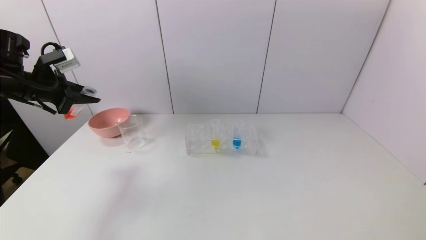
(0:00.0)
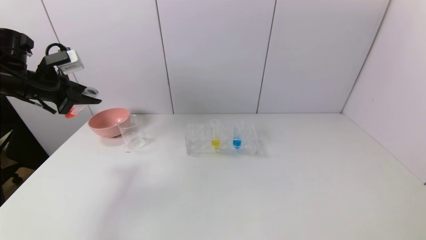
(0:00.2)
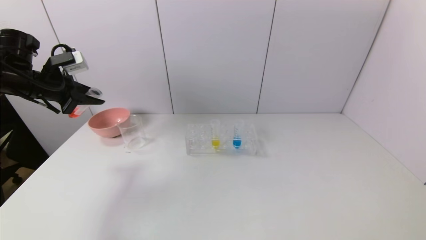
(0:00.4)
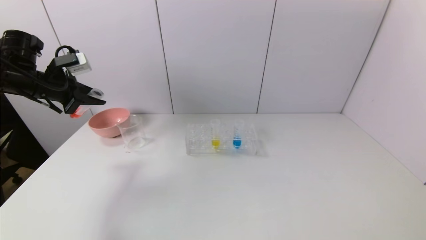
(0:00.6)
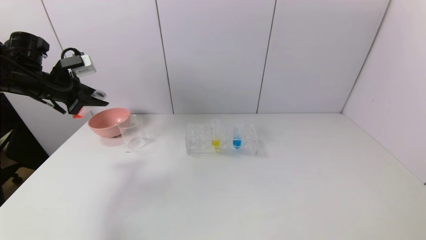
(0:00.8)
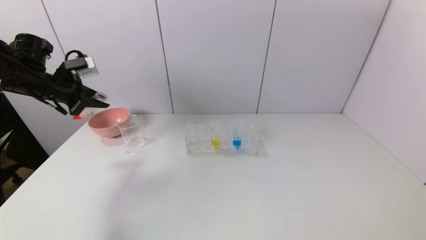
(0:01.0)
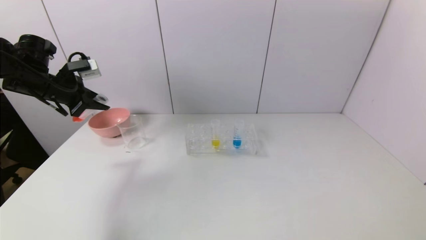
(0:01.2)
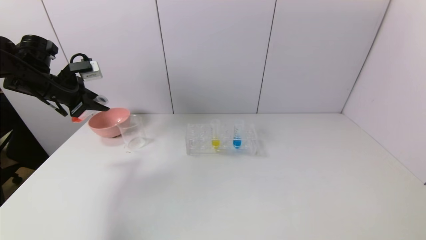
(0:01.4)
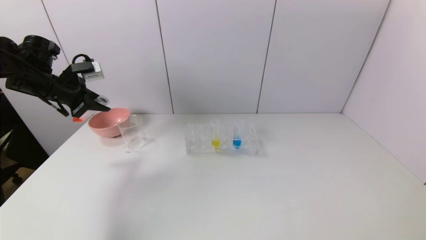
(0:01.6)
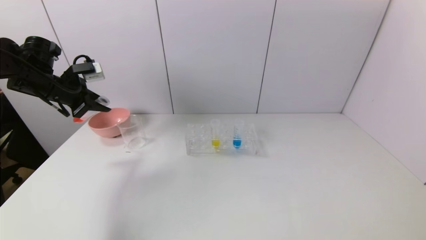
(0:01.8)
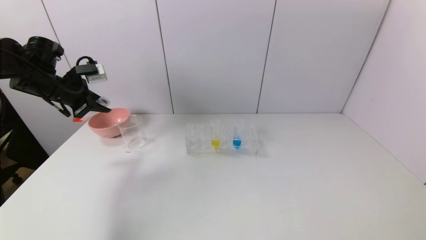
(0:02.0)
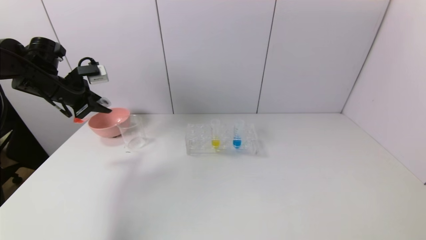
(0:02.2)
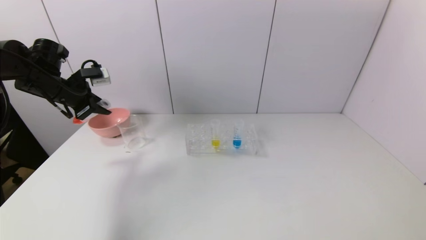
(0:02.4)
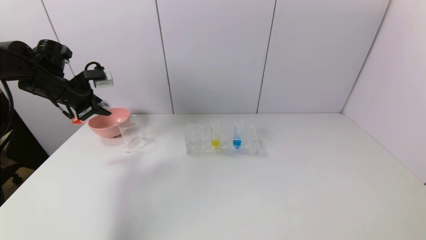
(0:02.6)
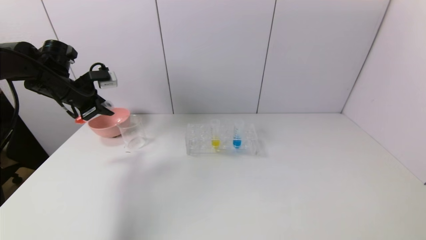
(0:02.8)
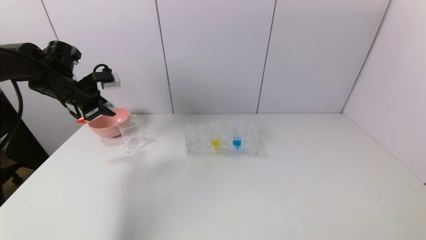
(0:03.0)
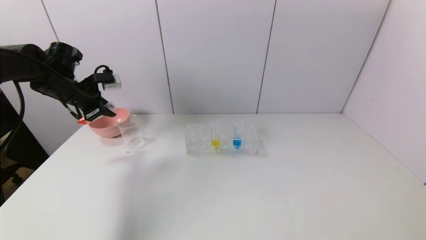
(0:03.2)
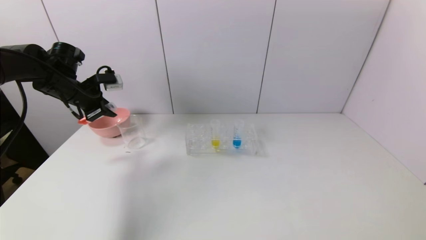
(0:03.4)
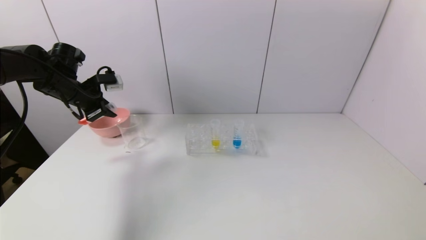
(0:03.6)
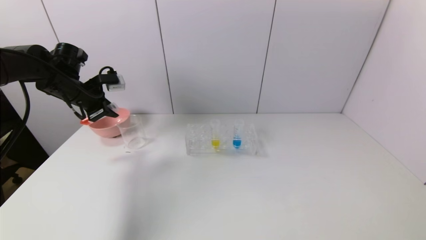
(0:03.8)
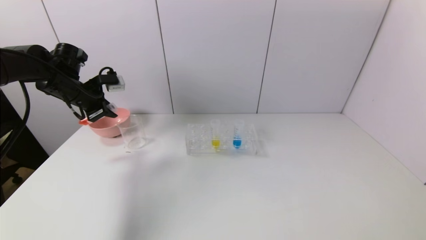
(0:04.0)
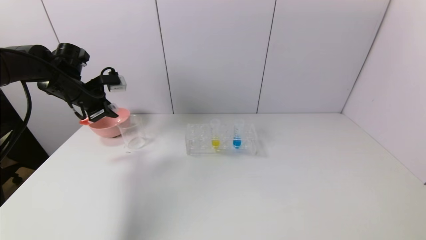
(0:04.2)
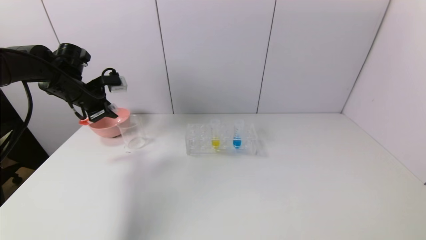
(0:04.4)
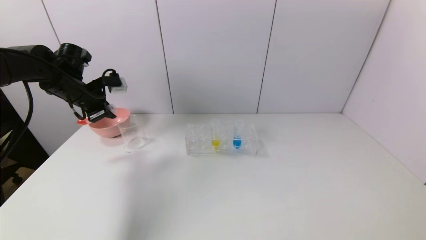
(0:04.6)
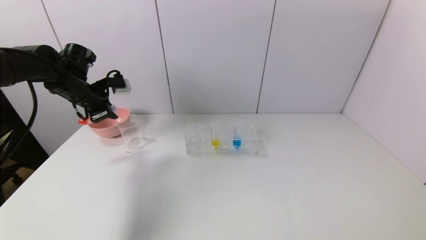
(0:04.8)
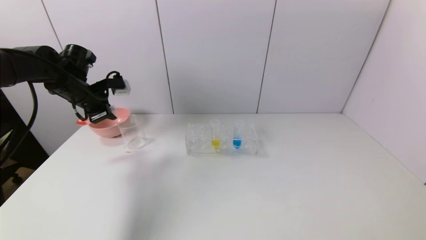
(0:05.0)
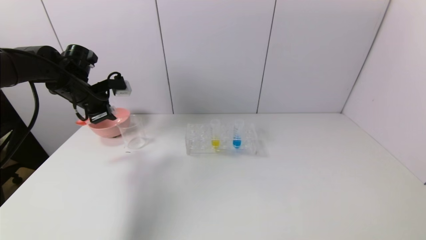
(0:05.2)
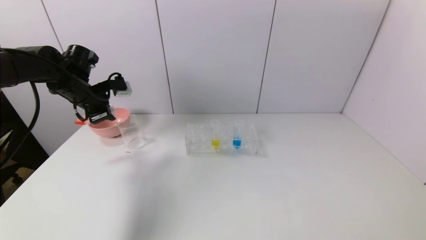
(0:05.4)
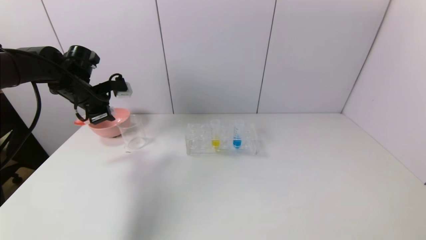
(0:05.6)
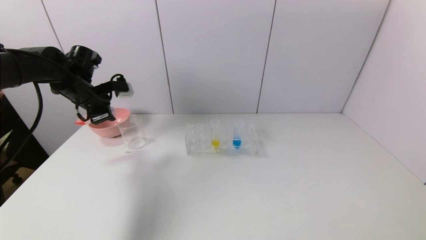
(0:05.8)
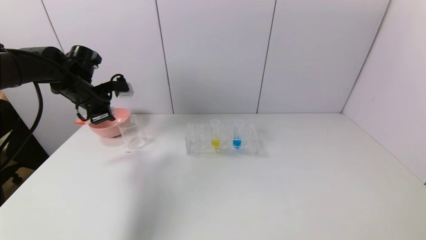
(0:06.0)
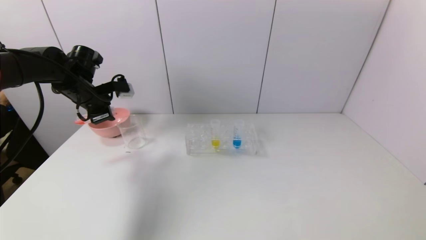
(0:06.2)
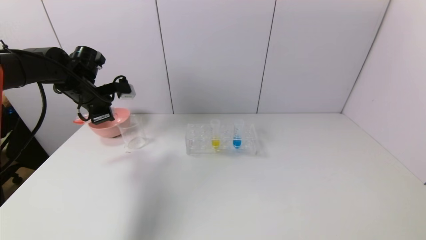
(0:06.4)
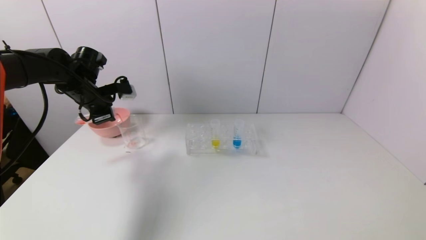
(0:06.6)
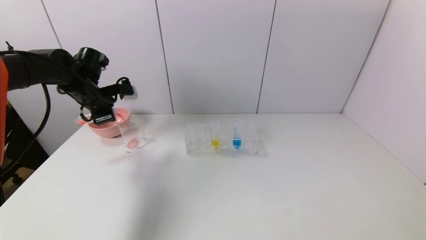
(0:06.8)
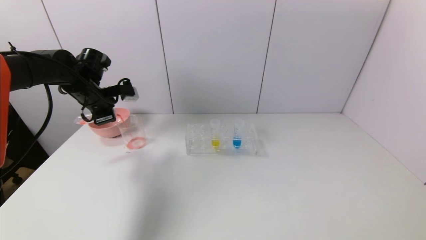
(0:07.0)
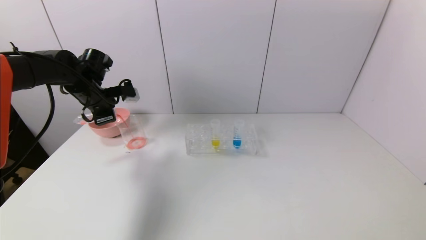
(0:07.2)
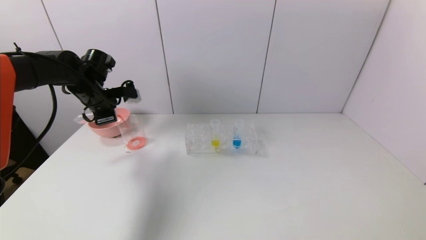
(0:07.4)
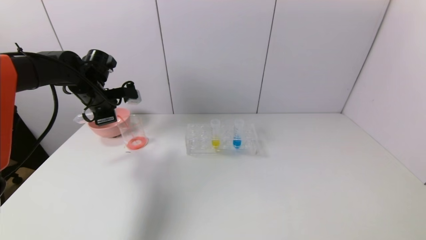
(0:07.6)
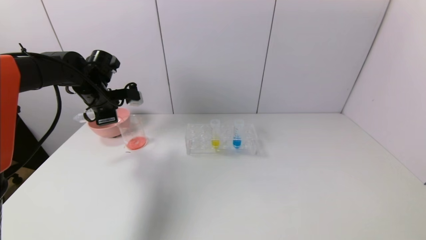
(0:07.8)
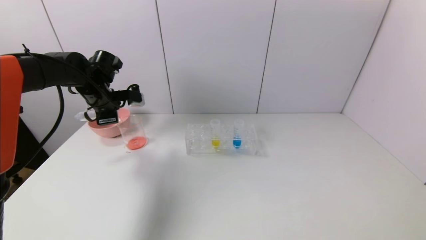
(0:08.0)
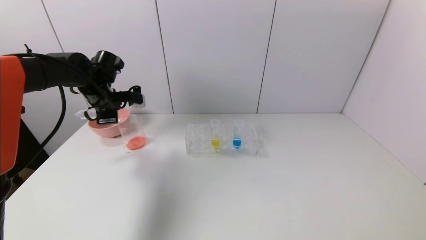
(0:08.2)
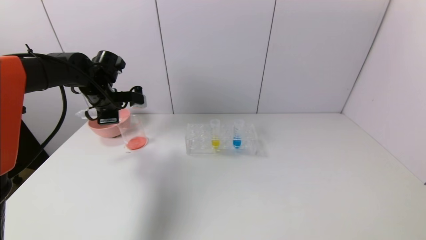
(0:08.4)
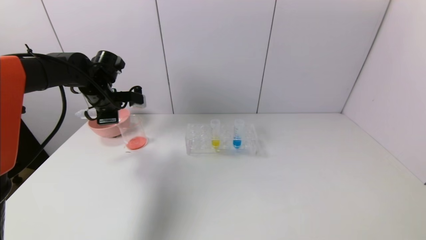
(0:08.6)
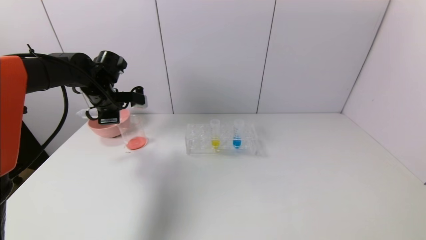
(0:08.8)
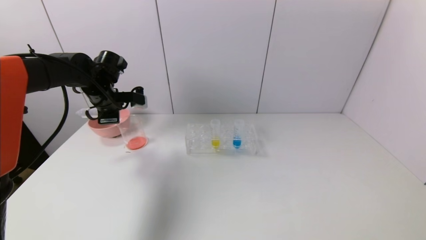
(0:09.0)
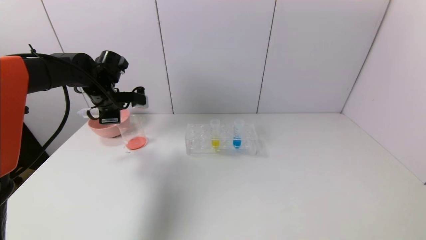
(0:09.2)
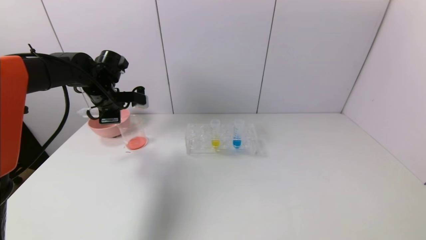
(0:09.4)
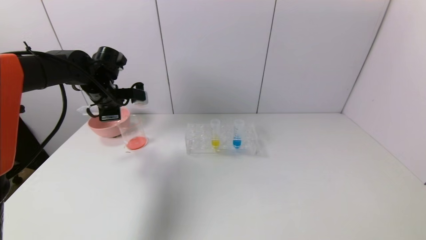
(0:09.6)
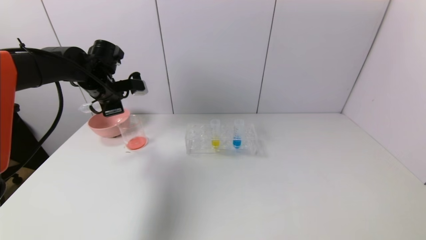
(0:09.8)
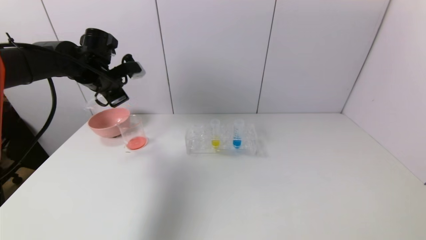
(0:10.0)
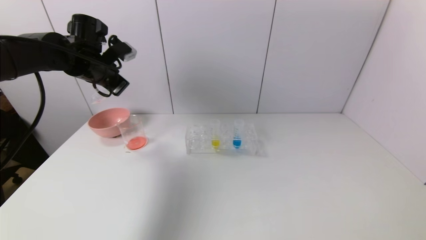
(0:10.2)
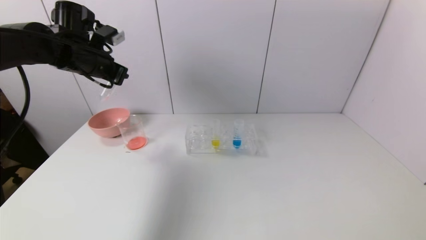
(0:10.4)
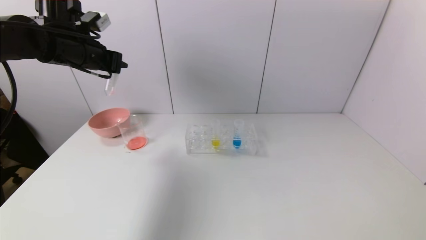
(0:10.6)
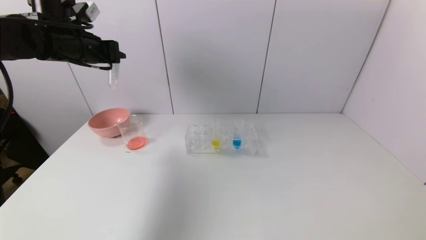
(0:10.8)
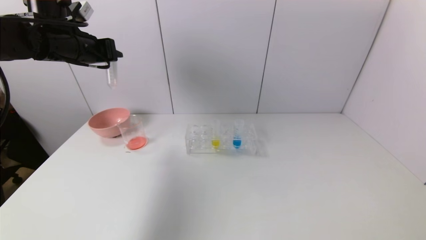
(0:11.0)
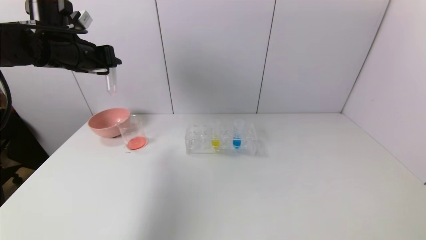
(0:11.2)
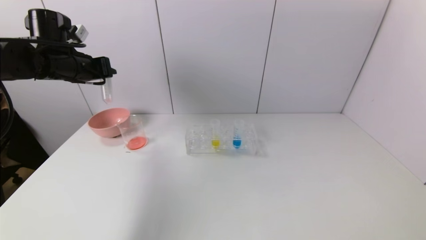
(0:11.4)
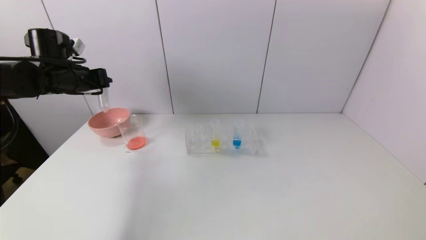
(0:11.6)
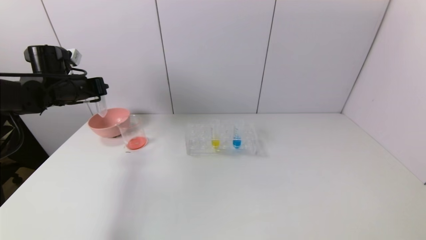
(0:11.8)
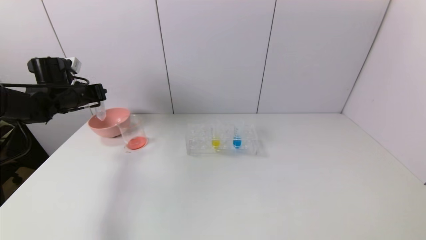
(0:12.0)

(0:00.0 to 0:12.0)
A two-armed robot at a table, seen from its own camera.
Task of the whole recording: pick up the test tube with red pigment and the test tube with blue pigment by grippers and pour them into the container.
Step, 0:00.0 - 0:10.4: Pour the red reagent into the graduated cylinder with the left gripper.
0:00.0 - 0:01.6: The grippers stay close to where they were, moving slightly.
0:01.6 - 0:04.4: There are only small adjustments of the grippers.
0:04.4 - 0:06.0: There are only small adjustments of the grippers.
0:06.0 - 0:07.6: The grippers move only a little.
0:07.6 - 0:09.0: There are only small adjustments of the grippers.
0:09.0 - 0:10.4: The left gripper goes roughly 10 cm upward.
0:10.4 - 0:12.0: The left gripper goes approximately 15 cm downward and to the left.

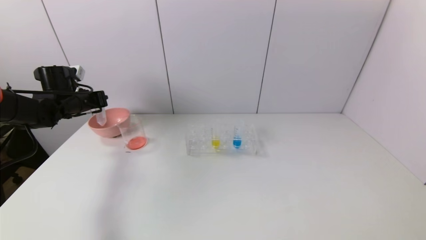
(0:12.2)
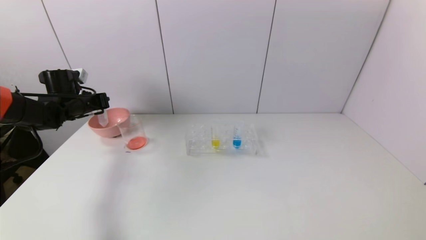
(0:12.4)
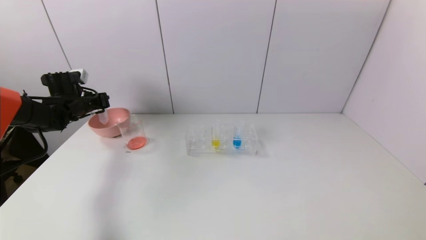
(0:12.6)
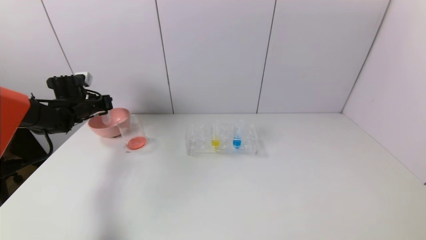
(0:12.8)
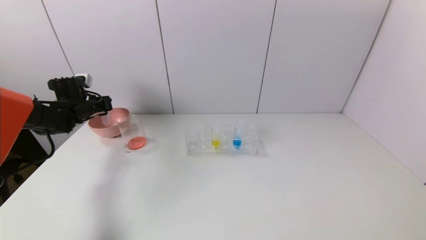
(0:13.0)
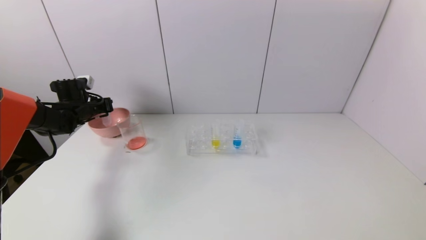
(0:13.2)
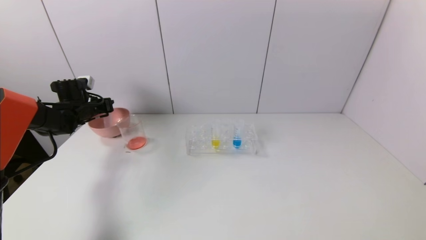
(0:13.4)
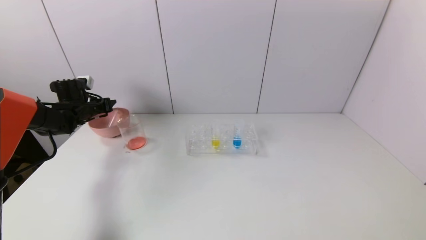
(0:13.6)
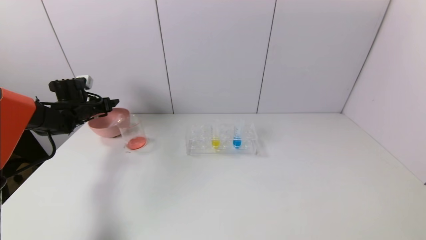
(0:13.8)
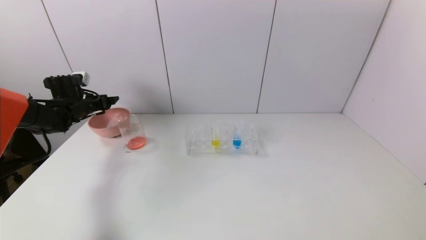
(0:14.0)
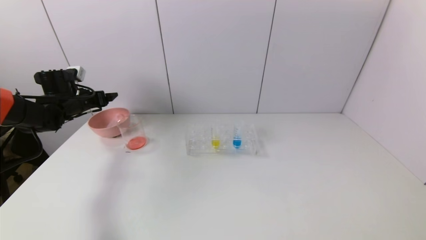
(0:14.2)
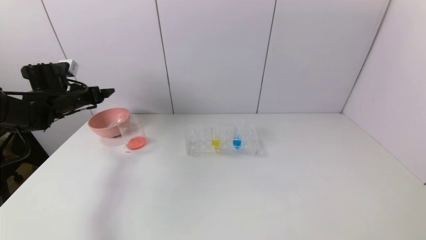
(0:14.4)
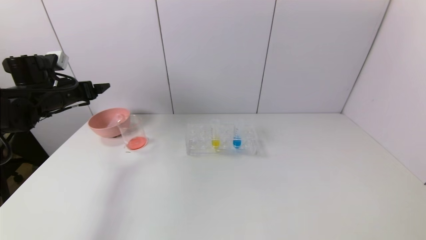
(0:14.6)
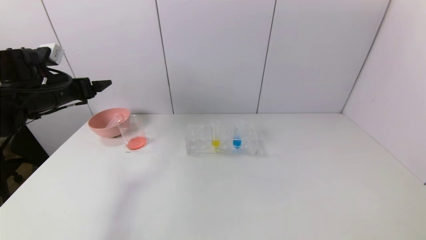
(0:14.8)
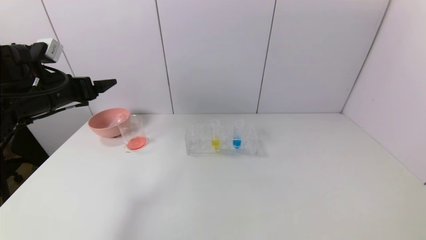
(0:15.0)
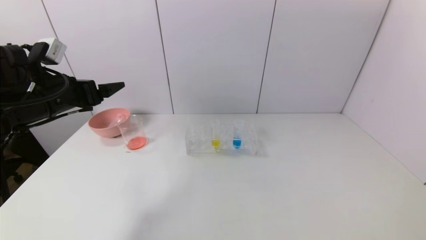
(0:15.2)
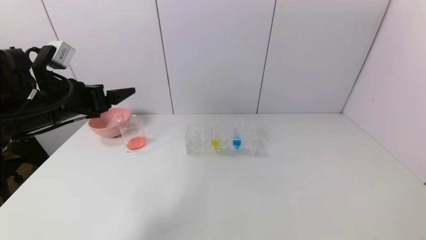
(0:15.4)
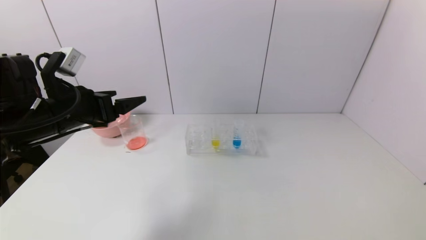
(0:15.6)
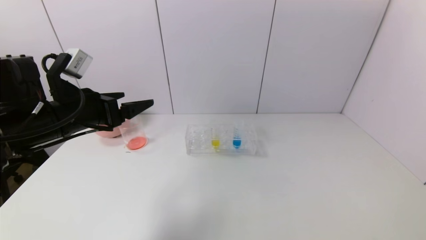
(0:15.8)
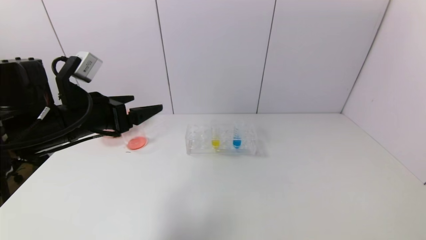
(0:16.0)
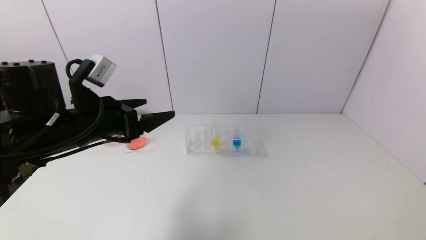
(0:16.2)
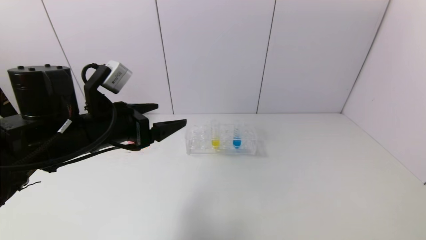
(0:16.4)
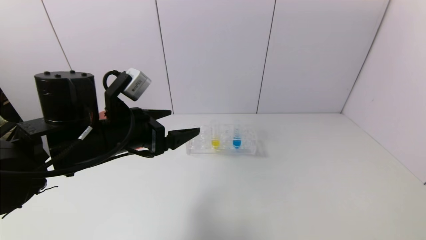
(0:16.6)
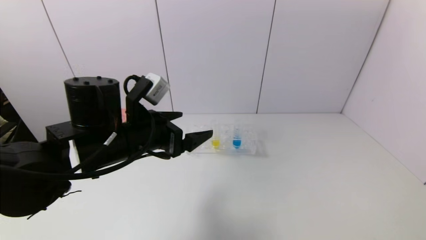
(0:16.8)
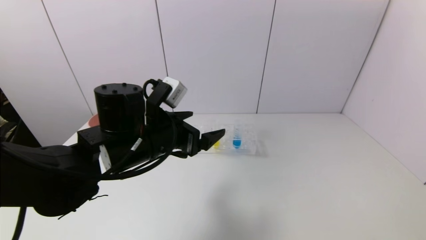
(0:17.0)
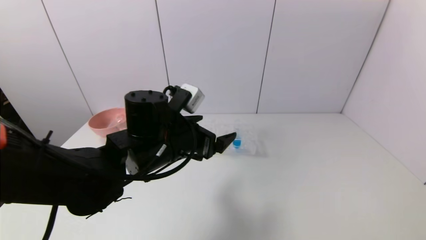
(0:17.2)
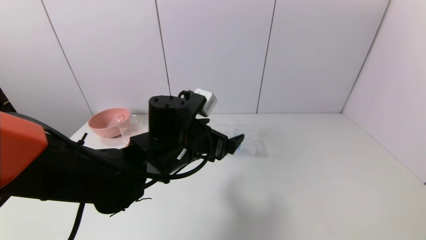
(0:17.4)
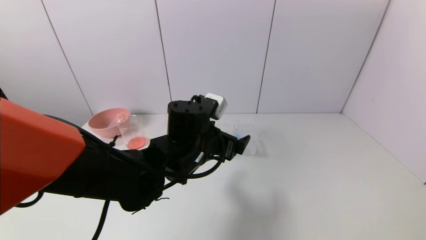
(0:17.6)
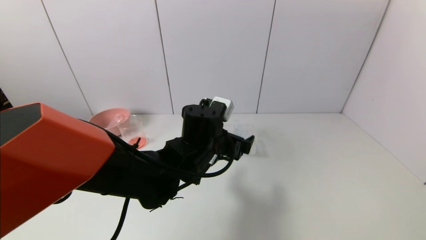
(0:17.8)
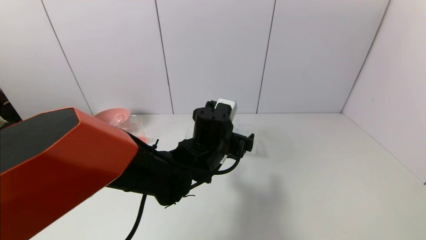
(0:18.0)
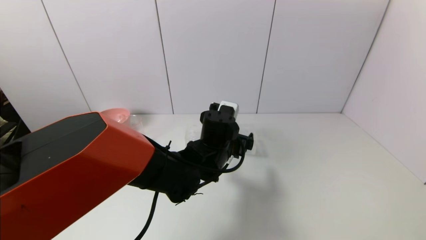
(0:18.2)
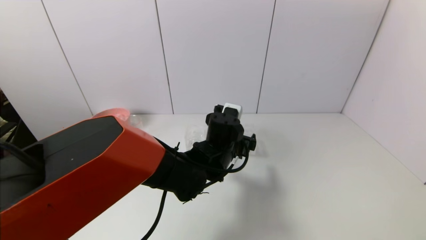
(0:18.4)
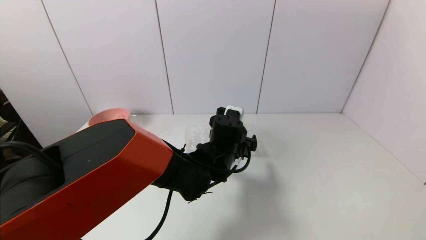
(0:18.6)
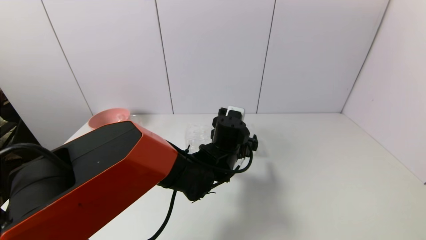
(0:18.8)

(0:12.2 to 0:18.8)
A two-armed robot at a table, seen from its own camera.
Task of the whole recording: pick up the test tube with red pigment and the test tube with blue pigment by grippers and pour them into the container.
Step, 0:12.2 - 0:14.6: Place the test tube into the bowl with the left gripper.
0:12.2 - 0:13.8: The left gripper moves approximately 5 cm, and opens up.
0:13.8 - 0:15.4: The left gripper heads backward, to the right and upward, covering some 25 cm.
0:15.4 - 0:17.2: The left gripper moves to the right, roughly 20 cm.
0:17.2 - 0:18.8: The left gripper goes some 15 cm to the right, downward and forward.
